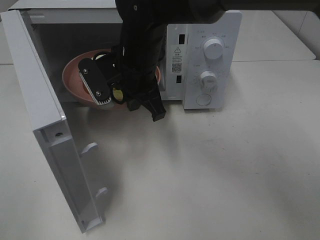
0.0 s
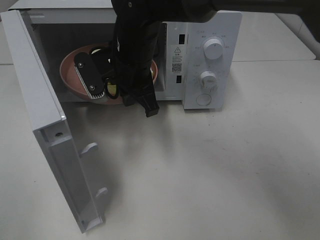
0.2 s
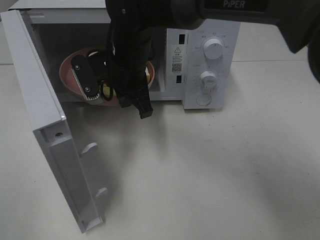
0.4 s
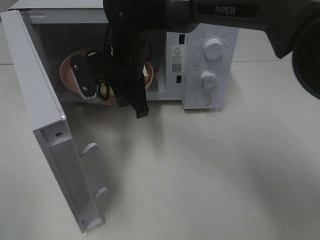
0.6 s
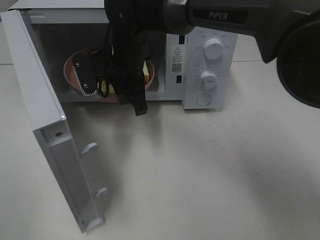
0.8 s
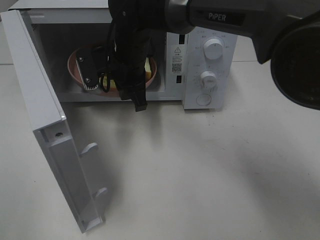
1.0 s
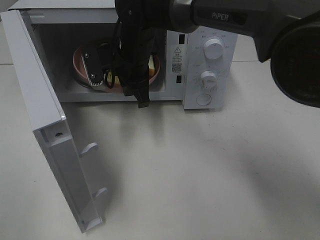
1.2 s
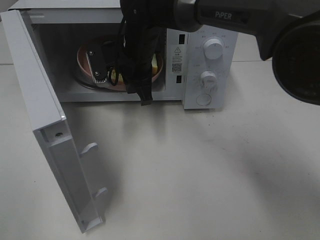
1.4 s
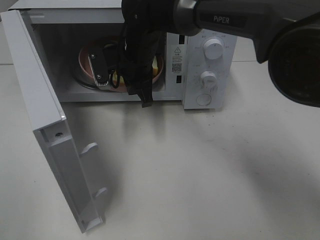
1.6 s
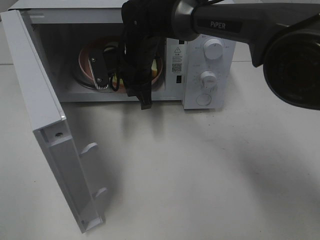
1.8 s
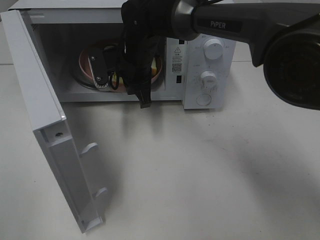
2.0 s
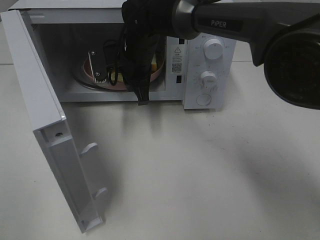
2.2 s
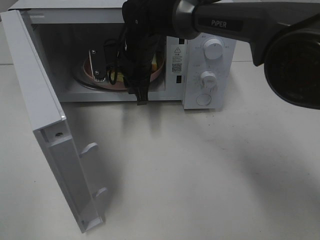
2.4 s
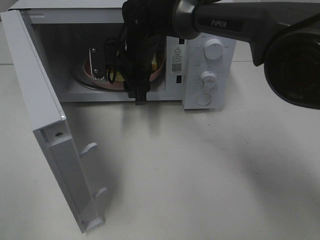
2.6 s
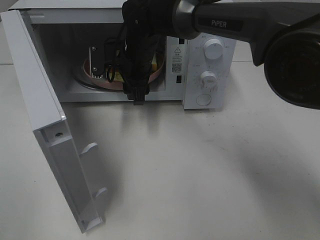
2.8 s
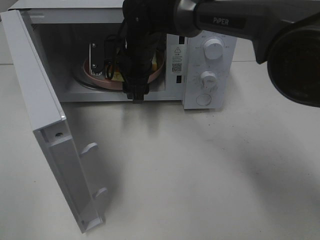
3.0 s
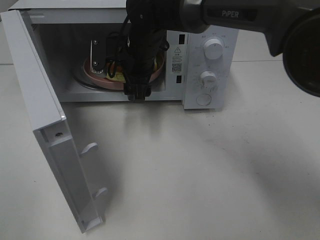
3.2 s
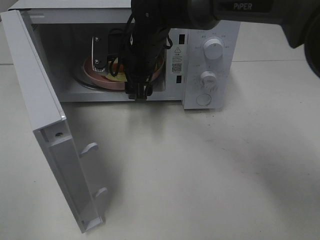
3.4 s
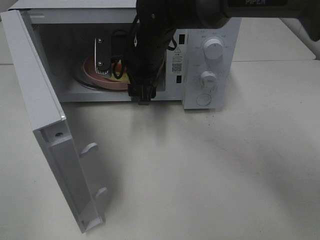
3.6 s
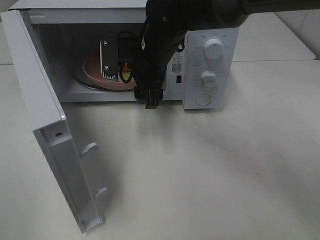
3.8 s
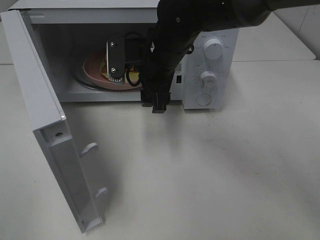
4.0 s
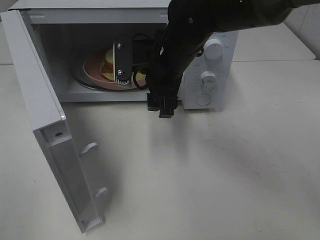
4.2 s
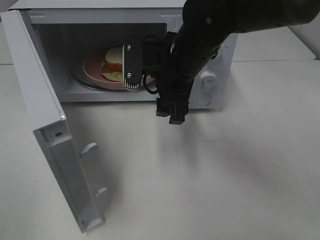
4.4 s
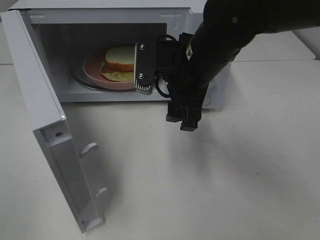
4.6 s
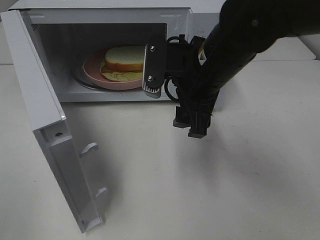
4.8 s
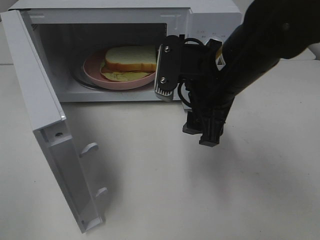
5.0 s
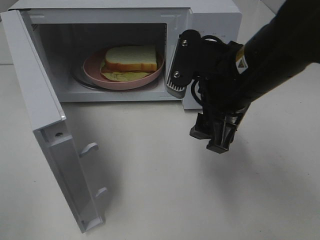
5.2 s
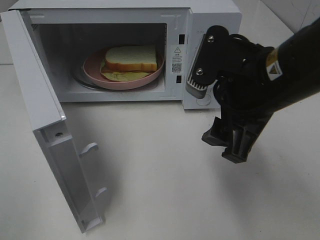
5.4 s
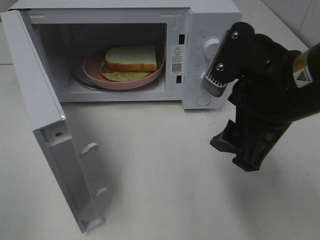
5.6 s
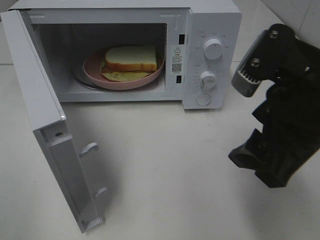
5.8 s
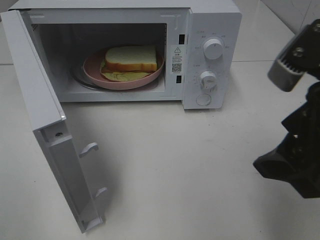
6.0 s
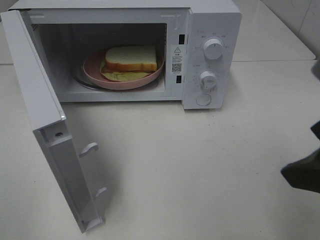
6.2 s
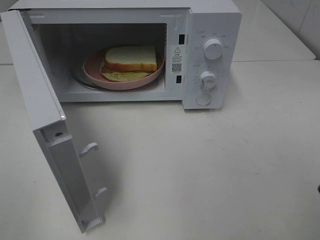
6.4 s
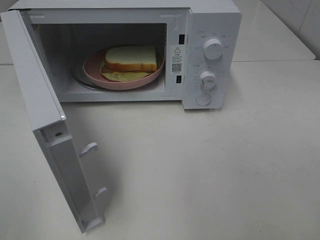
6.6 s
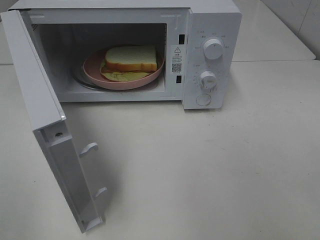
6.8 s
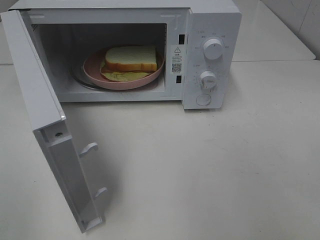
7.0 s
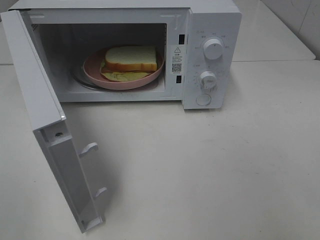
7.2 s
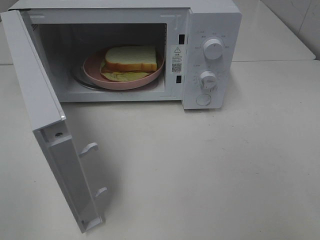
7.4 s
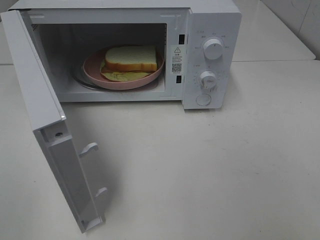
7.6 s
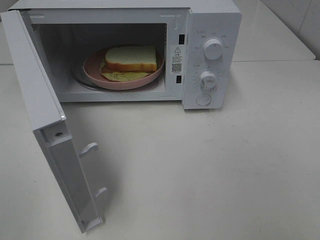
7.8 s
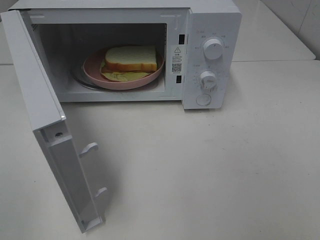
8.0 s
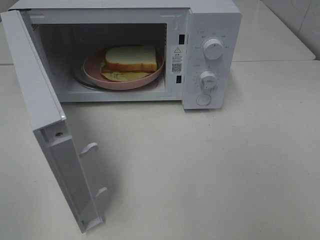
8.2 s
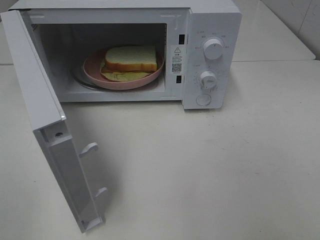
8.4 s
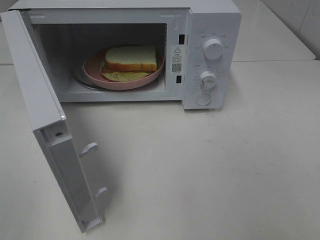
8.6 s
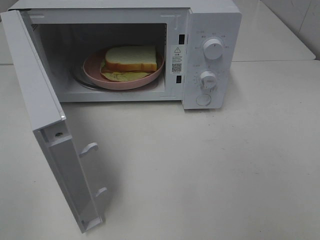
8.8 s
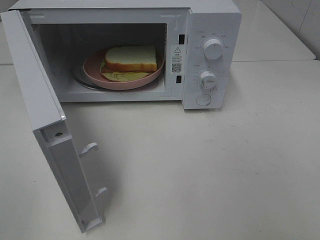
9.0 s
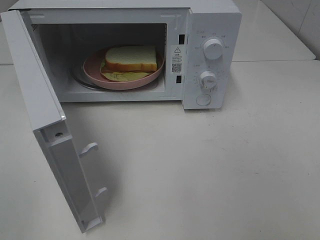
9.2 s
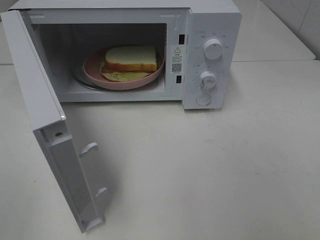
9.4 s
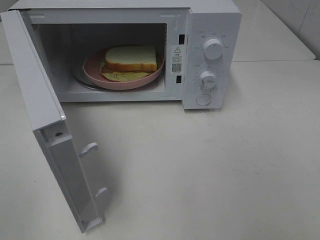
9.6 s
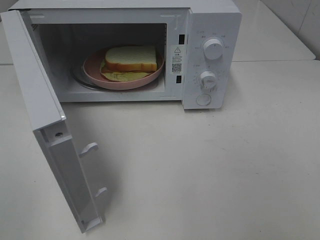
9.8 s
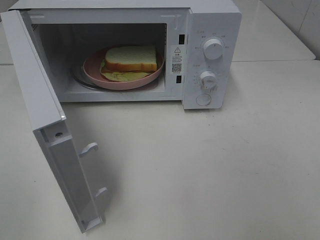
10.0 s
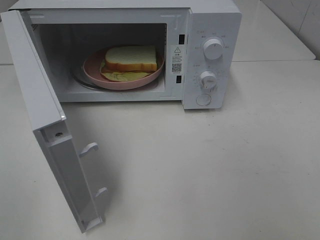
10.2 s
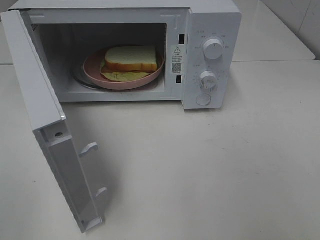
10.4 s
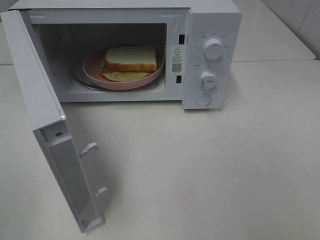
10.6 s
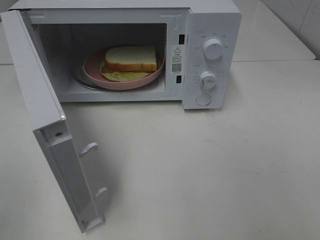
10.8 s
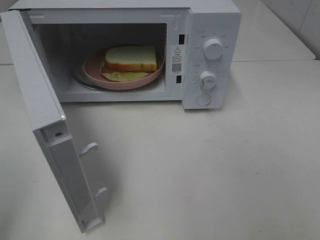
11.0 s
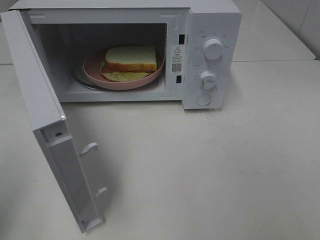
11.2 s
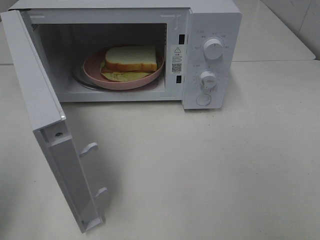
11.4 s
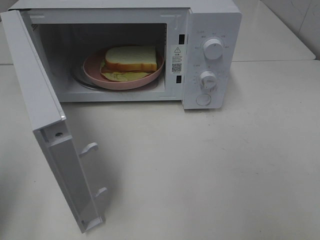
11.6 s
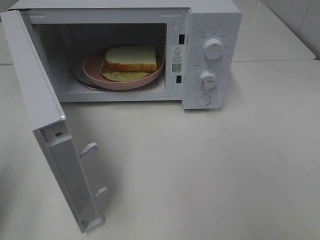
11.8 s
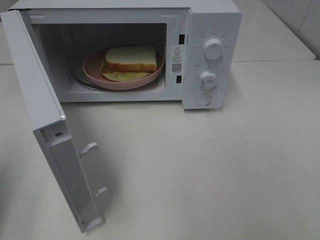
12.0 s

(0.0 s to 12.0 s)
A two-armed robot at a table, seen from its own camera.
Task of the whole recording: Heat Sandwich.
Step, 0.0 s - 3.6 s: Right hand: place the plate in the microwave.
0.0 s - 1.6 s: The right gripper travels forward by some 5 cm.
1.6 s - 3.0 s: The right gripper opens up.
3.0 s - 4.4 s: The right gripper shifts roughly 15 cm backward and to the right.
4.4 s - 6.0 s: The right gripper travels backward and to the right by about 25 cm.
6.0 s - 7.6 s: The right gripper goes some 15 cm backward and to the right.
9.0 s - 10.4 s: Both grippers stay about where they are.
10.4 s - 12.0 s: The left gripper moves forward, about 15 cm, and closes its fingers.

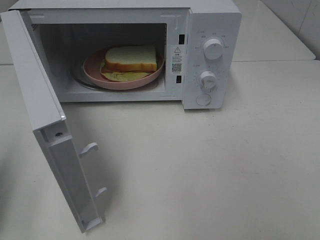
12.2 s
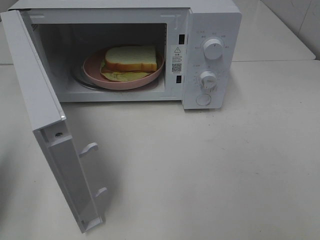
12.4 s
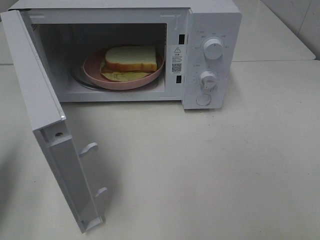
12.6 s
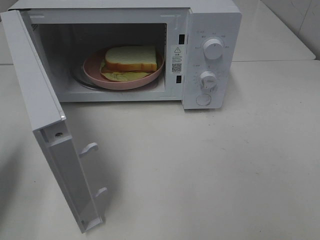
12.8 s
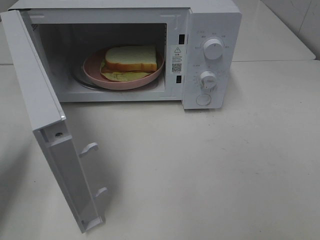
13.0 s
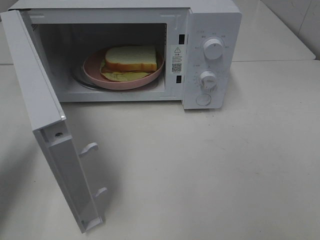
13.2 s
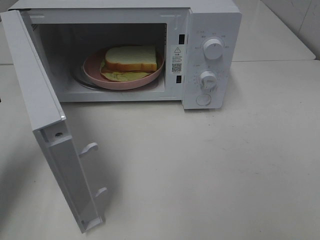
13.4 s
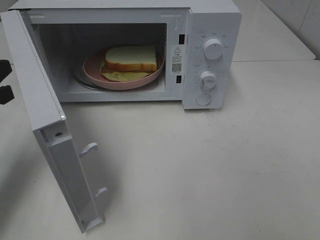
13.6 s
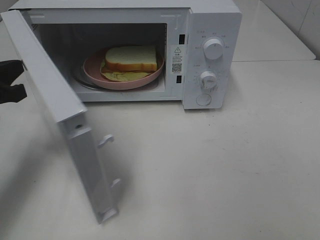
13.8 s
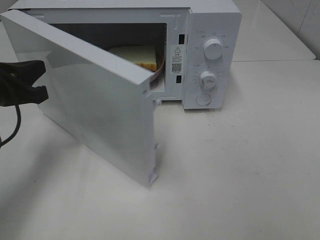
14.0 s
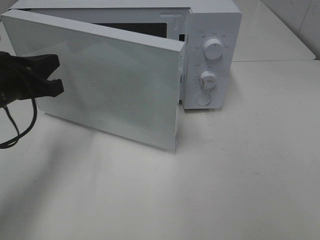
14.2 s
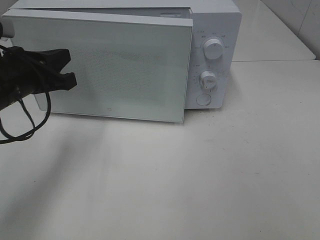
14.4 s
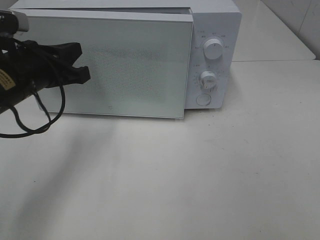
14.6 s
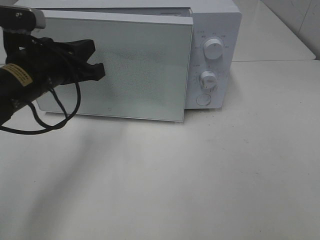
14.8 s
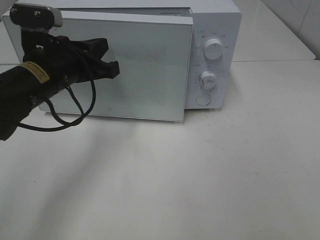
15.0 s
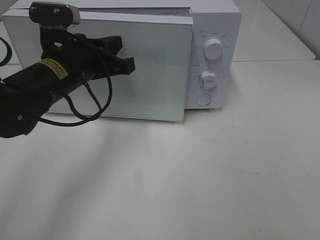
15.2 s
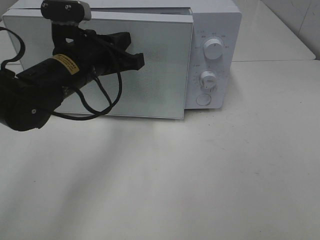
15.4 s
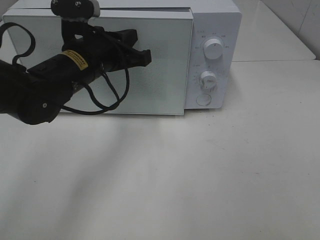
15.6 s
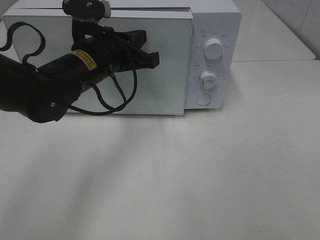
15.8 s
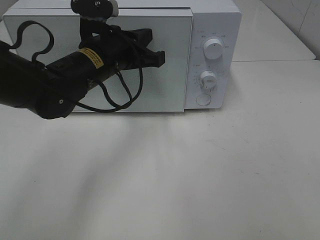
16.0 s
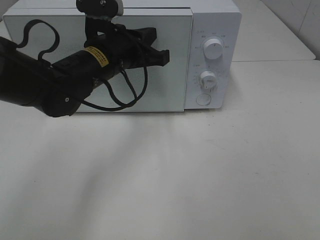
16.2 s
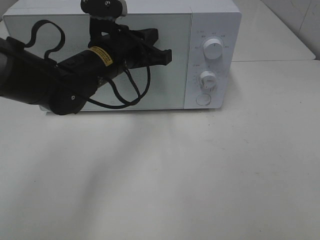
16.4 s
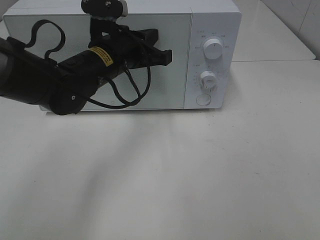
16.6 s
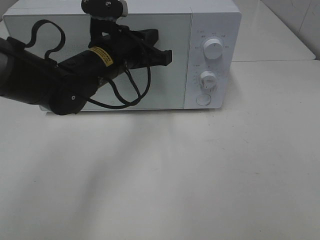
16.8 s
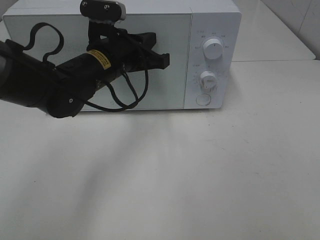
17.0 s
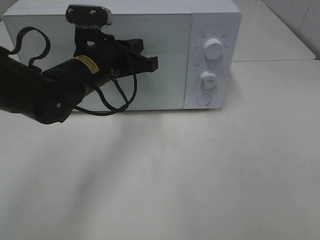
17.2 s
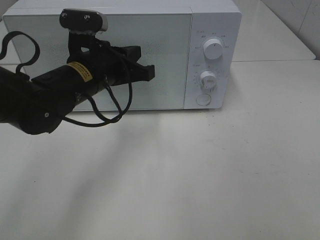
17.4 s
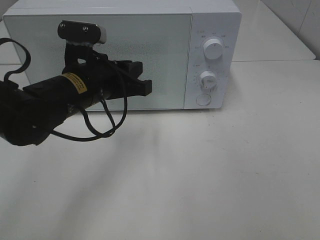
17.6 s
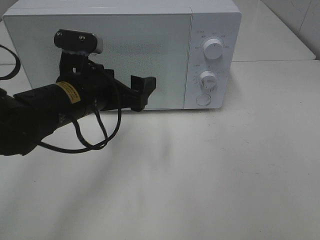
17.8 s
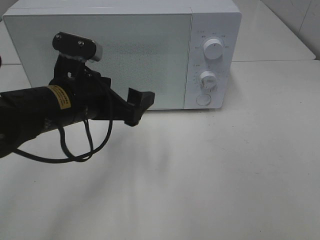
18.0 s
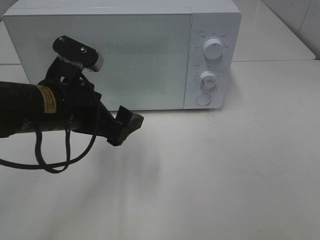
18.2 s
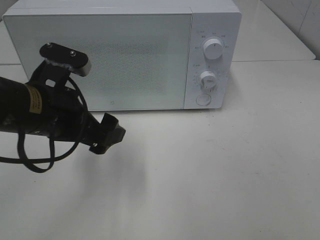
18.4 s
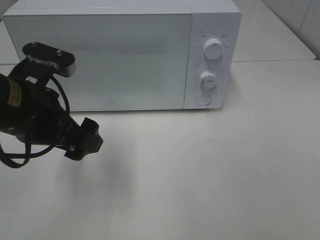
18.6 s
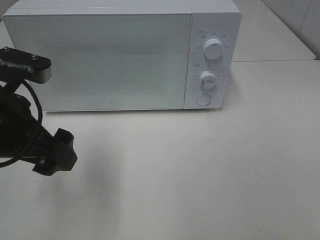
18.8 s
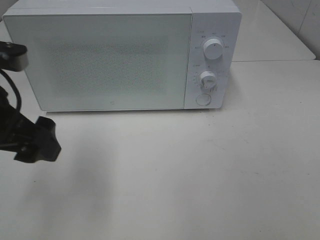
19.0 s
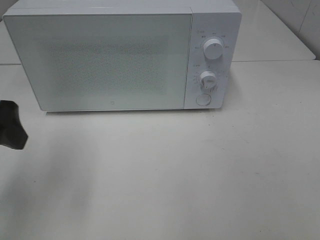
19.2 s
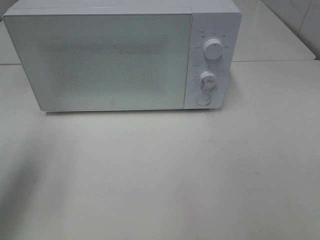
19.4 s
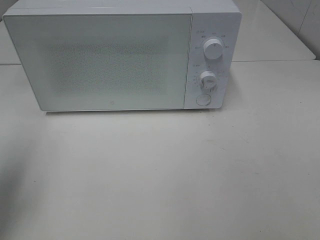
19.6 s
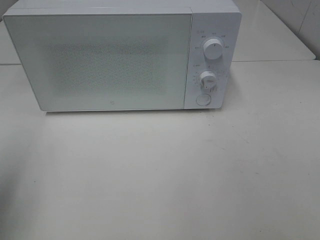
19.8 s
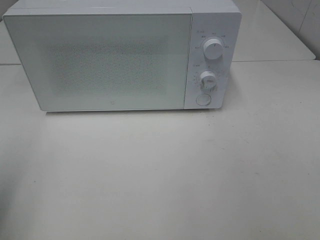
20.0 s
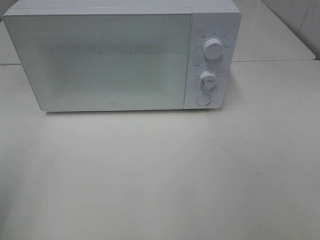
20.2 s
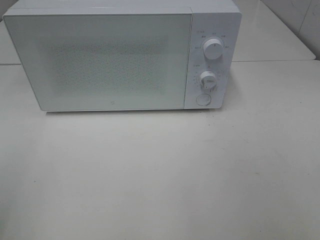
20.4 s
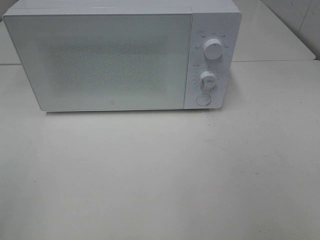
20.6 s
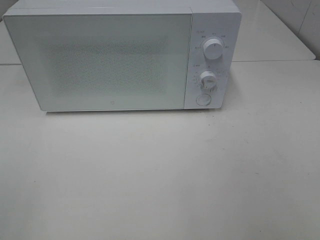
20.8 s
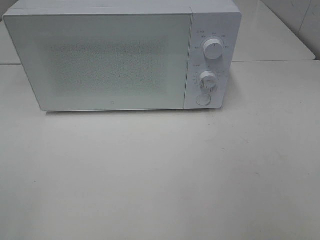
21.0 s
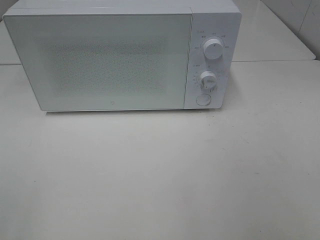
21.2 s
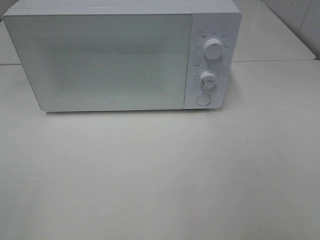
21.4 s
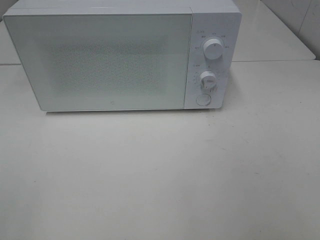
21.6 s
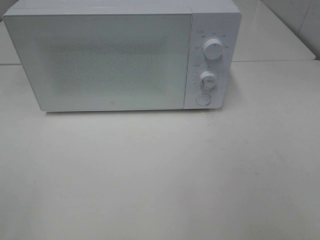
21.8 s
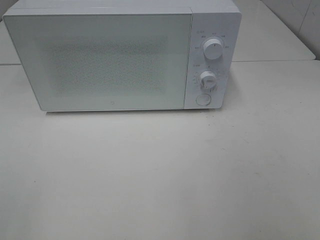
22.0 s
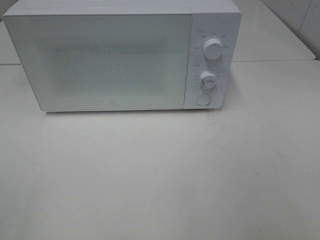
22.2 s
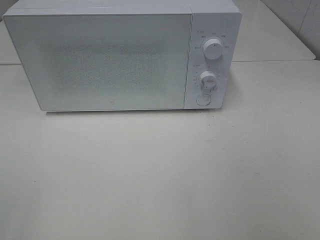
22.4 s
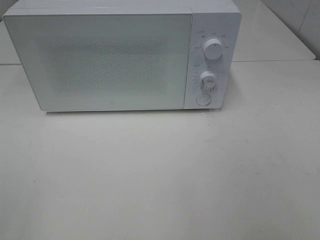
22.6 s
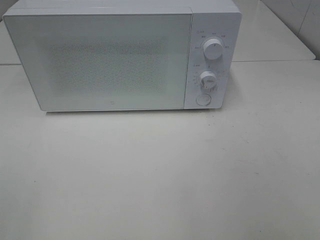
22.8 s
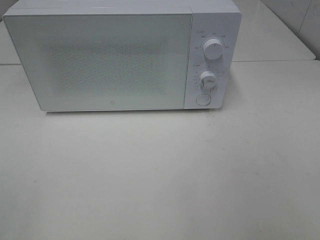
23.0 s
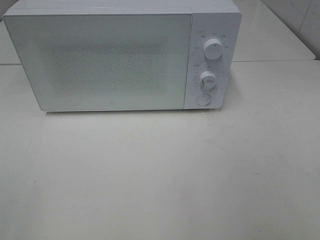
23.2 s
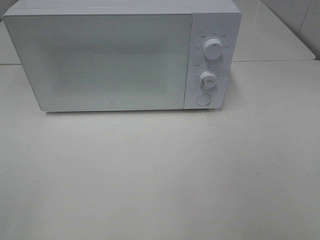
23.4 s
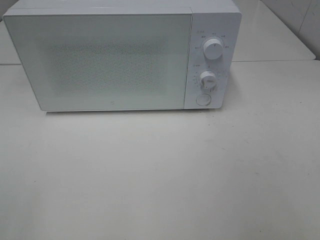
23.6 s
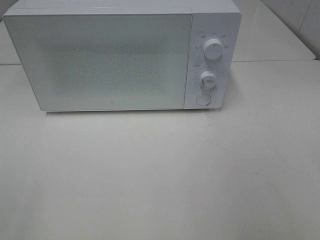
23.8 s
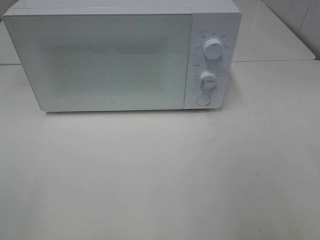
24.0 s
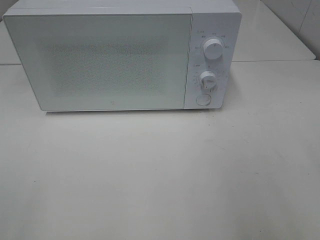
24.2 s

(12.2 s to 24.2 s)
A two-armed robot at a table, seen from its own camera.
Task of the whole recording: Heat Sandwich.
Step, 12.2 s - 16.4 s: Left hand: close the microwave door.
12.2 s - 13.8 s: The left gripper is displaced forward, to the right and downward by roughly 15 cm.
13.8 s - 15.2 s: The left gripper heads to the right, covering roughly 15 cm.
15.2 s - 16.6 s: The left gripper shifts about 5 cm to the right.
16.6 s - 18.2 s: The left gripper heads backward and to the left, covering roughly 10 cm, and opens its fingers.
18.2 s - 19.8 s: The left gripper moves to the left, upward and backward, approximately 25 cm.
19.8 s - 21.2 s: The left gripper is displaced backward by roughly 15 cm.
21.2 s - 22.6 s: Neither gripper changes place.
